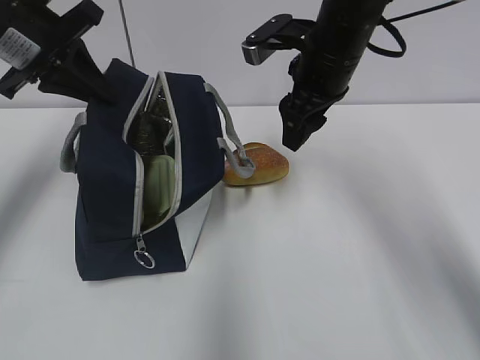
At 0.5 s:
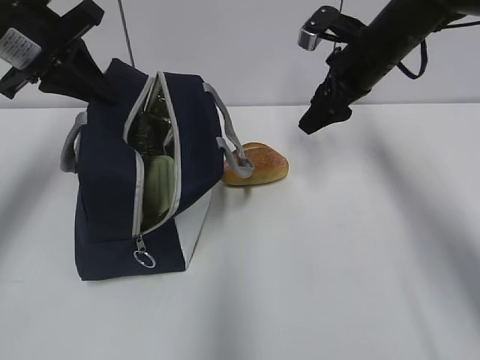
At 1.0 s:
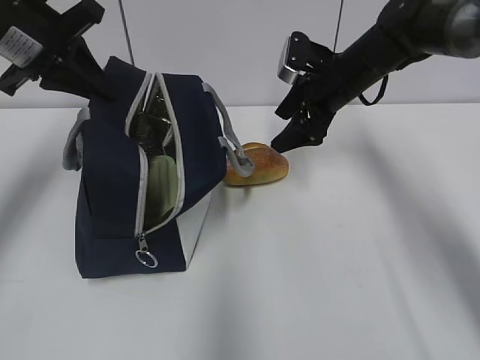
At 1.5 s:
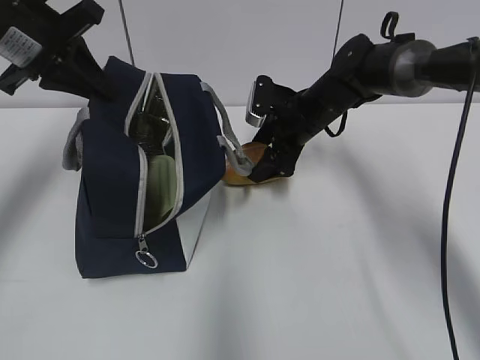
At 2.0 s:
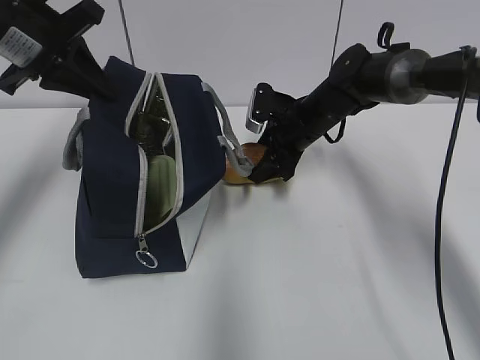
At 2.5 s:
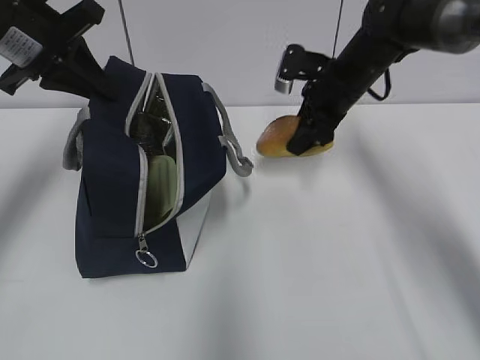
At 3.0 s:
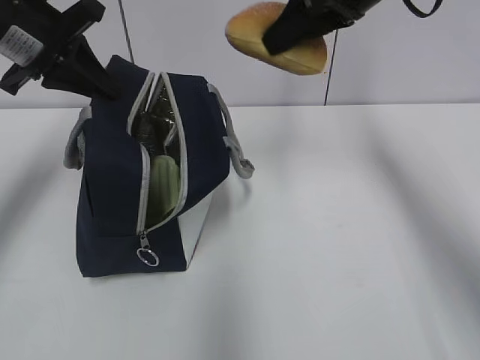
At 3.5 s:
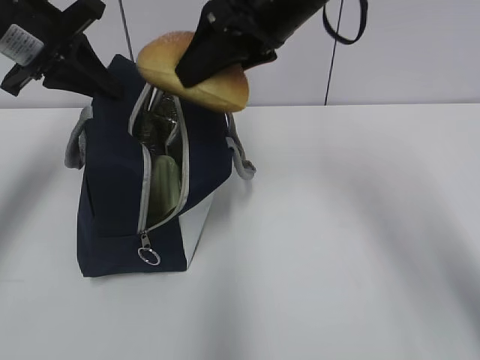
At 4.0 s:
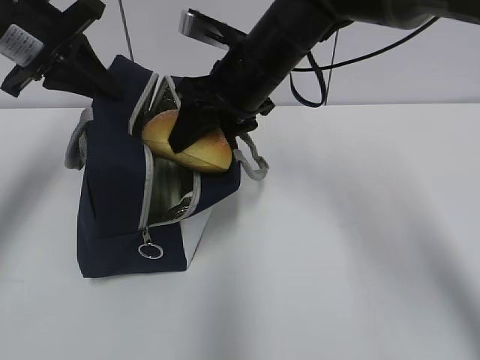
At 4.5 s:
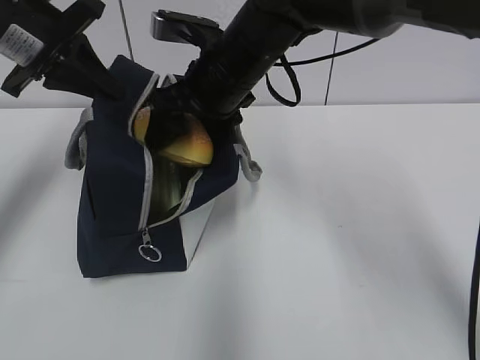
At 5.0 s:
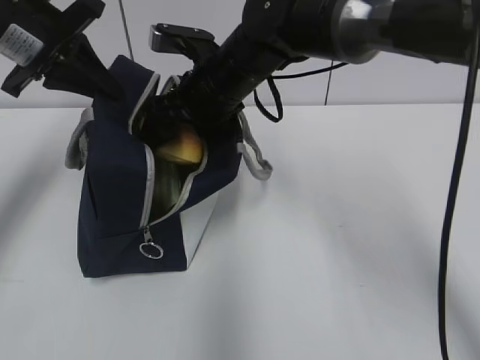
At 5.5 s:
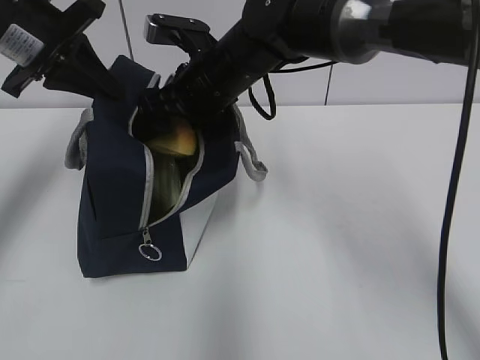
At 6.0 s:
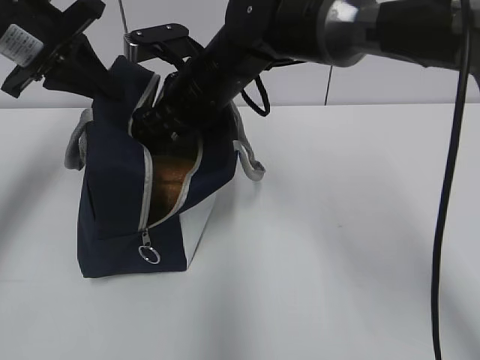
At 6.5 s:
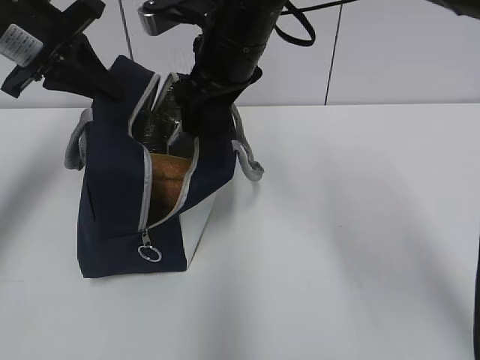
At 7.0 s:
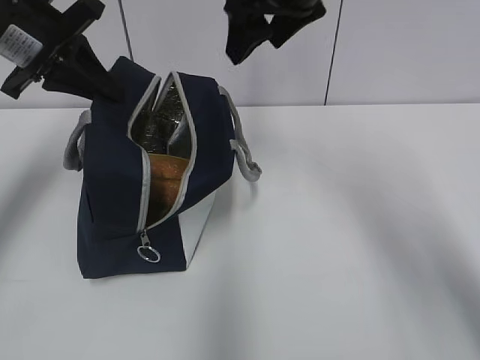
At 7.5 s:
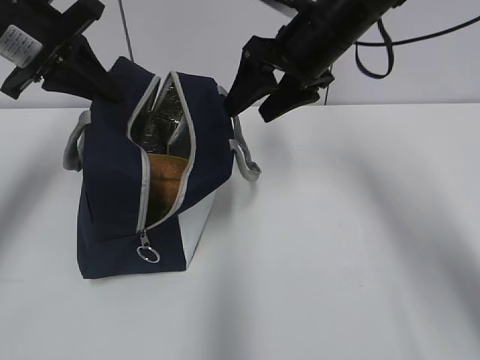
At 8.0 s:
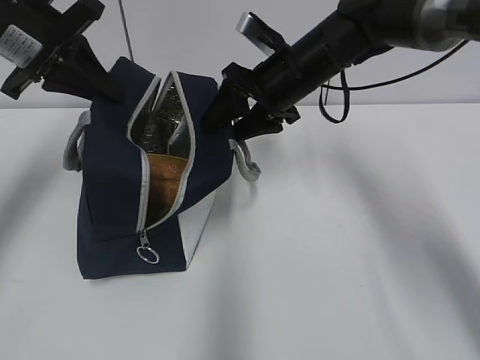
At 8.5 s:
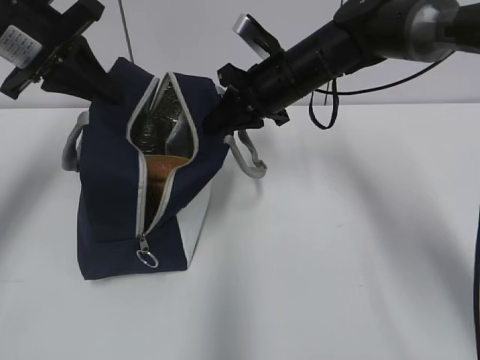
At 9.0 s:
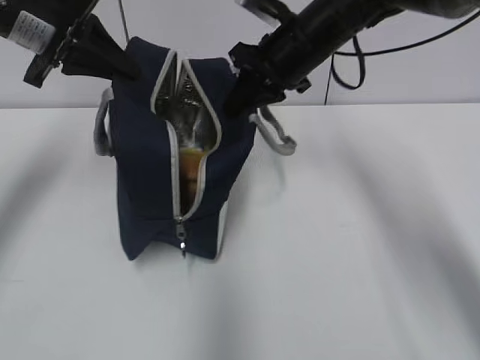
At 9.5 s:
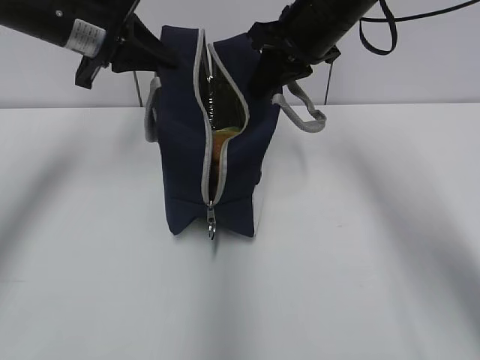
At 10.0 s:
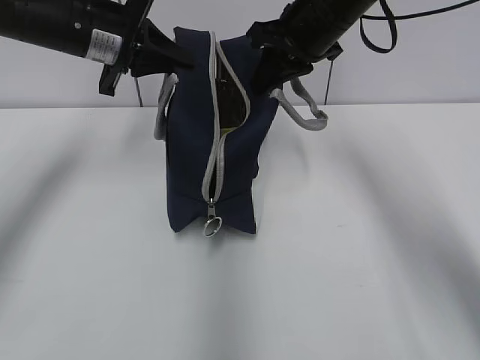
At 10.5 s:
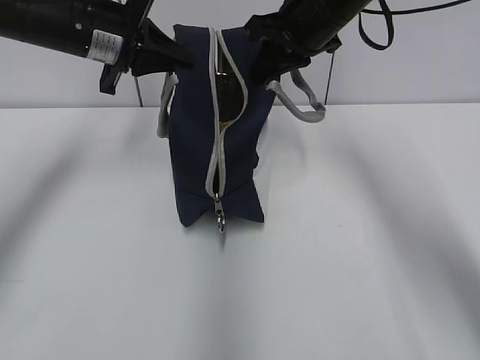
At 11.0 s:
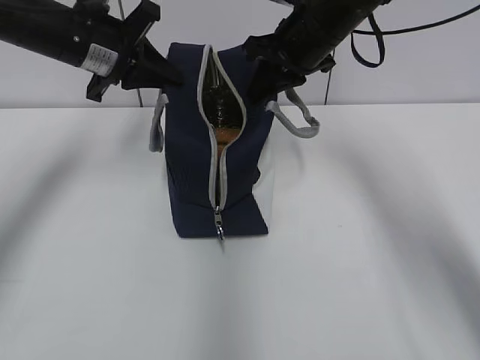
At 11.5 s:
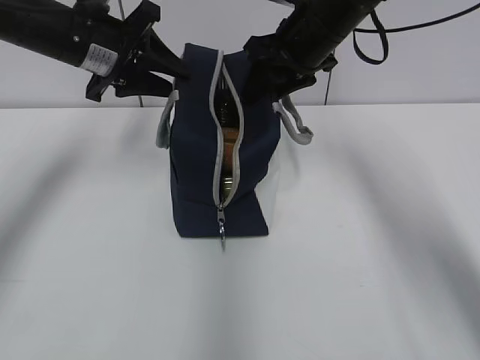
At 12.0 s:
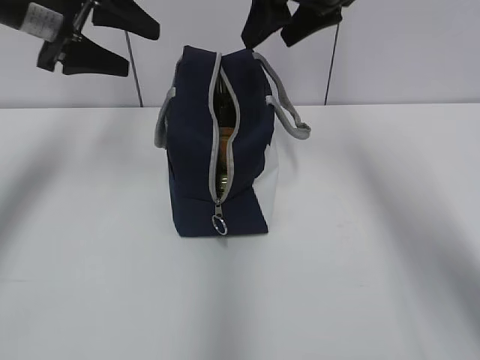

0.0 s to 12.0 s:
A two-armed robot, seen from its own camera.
0.0 to 2.0 s: The right gripper heads downward and forward, covering roughly 15 cm.
2.0 to 4.0 s: The right gripper moves upward, backward and to the left, some 20 cm.
4.0 to 6.0 s: The right gripper goes approximately 5 cm to the left, and opens its fingers.
6.0 to 8.0 s: The right gripper is displaced to the right by some 10 cm, and moves approximately 10 cm upward and comes back.
8.0 to 10.0 s: The right gripper shifts roughly 5 cm upward, and closes its fingers. The left gripper heads to the right, covering roughly 5 cm.
10.0 to 12.0 s: The left gripper shifts by some 5 cm, and opens its fingers. Meanwhile the right gripper shifts some 5 cm upward, and opens.

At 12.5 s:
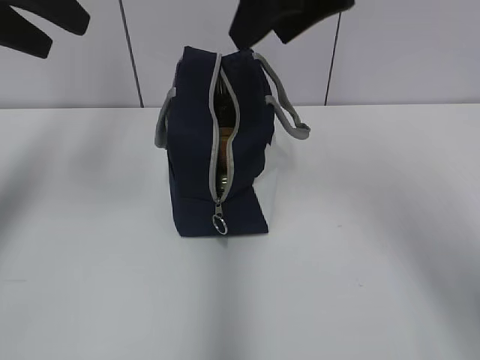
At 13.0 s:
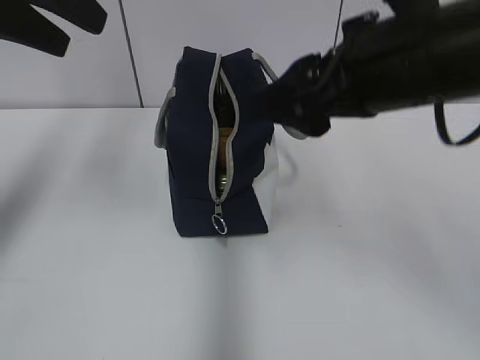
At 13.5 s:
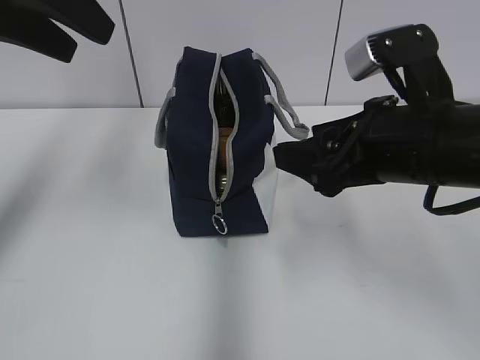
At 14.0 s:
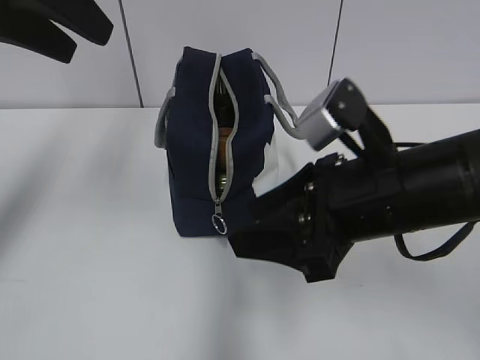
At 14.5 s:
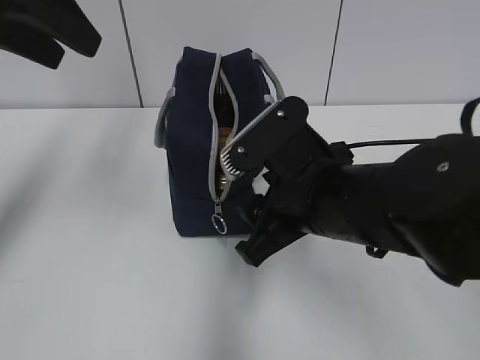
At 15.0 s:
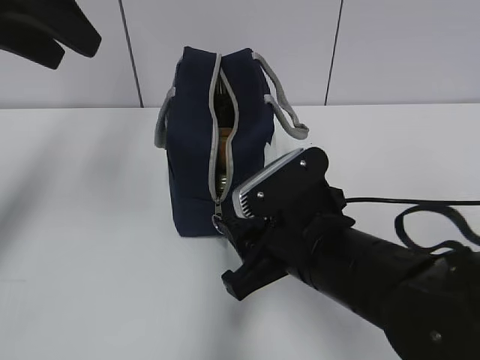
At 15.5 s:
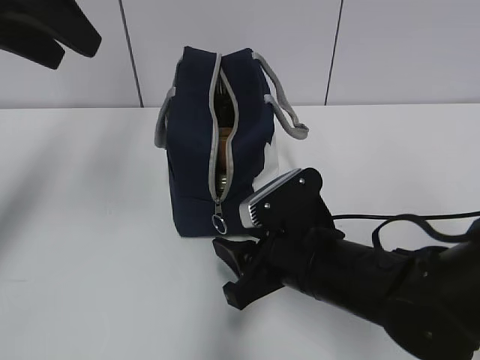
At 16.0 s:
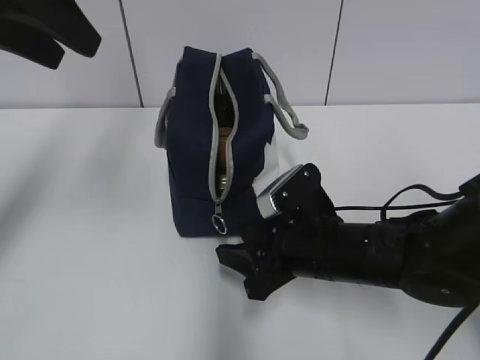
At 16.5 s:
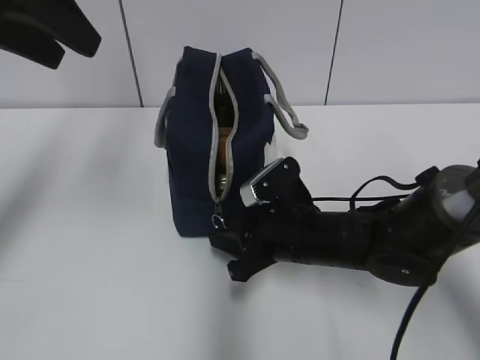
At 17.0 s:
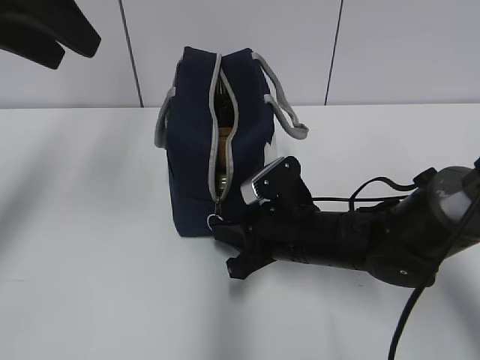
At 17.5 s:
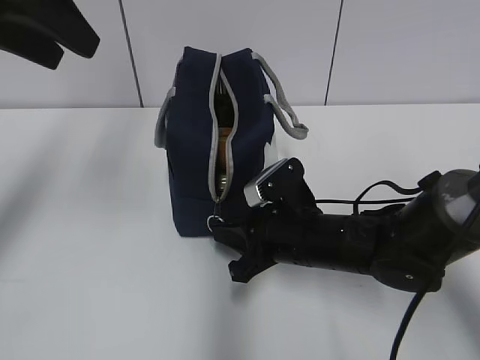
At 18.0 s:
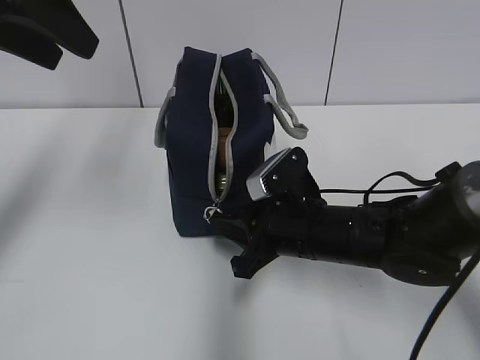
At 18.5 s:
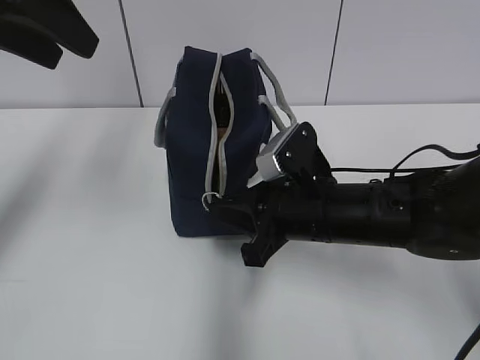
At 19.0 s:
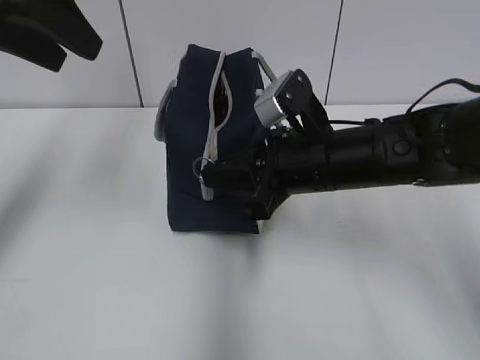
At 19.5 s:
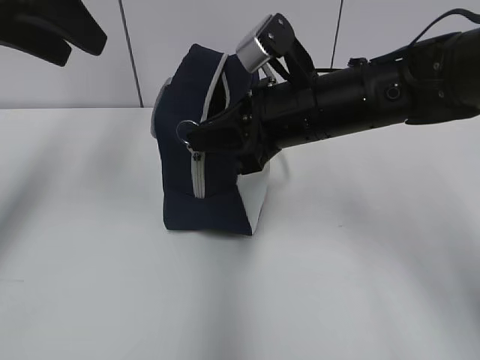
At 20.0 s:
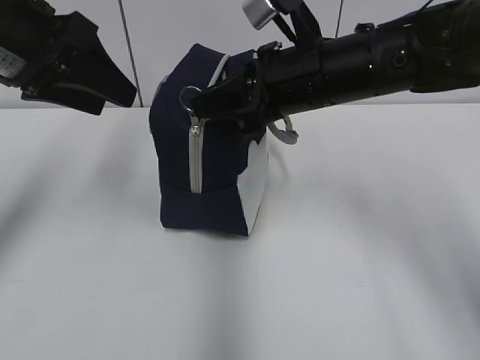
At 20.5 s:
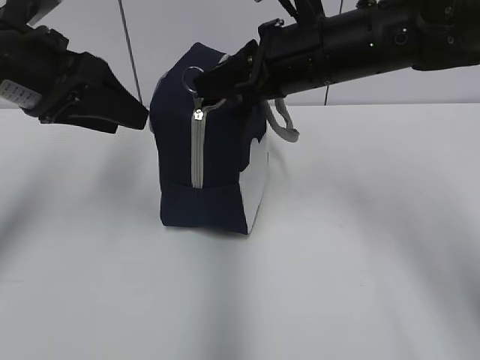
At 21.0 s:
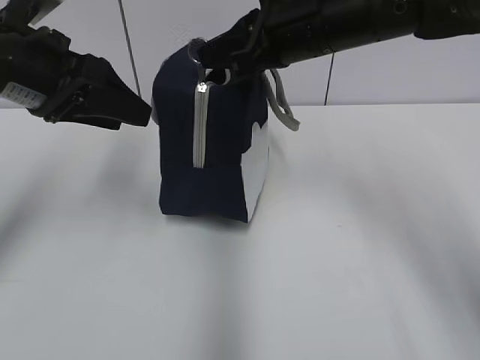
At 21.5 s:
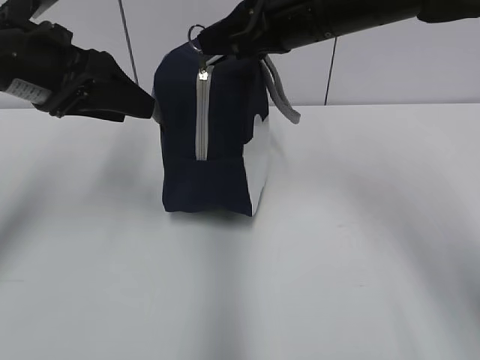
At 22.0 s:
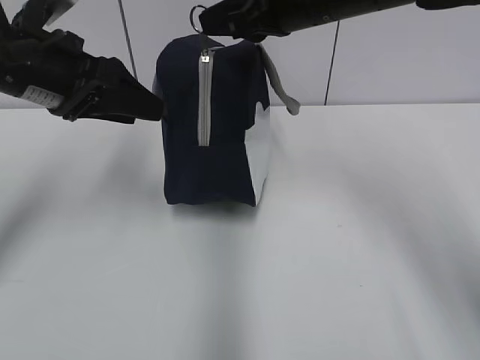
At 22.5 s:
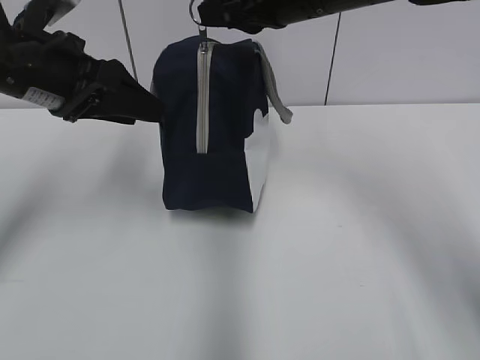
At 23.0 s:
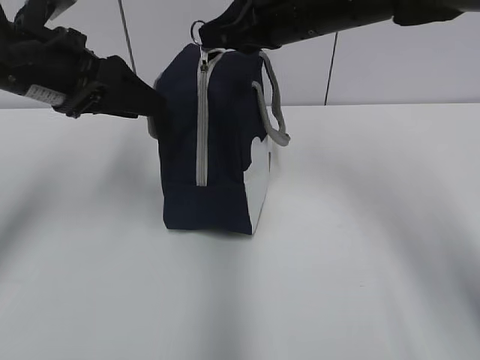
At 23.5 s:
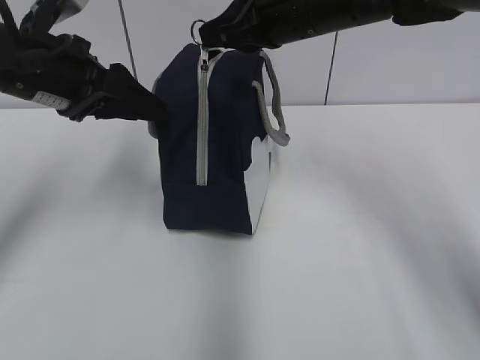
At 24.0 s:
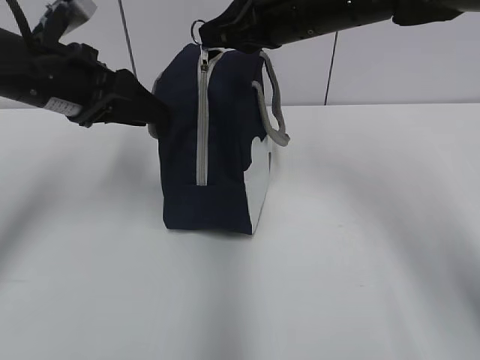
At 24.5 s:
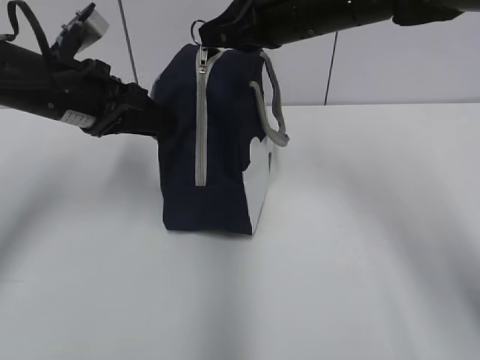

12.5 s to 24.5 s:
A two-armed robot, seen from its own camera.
12.5 to 14.5 s: The right gripper is displaced downward and backward by approximately 20 cm.
14.5 to 16.5 s: The right gripper travels downward and forward by some 15 cm.
16.5 to 18.5 s: The right gripper goes approximately 5 cm upward, and closes.
18.5 to 20.5 s: The left gripper heads downward, covering approximately 10 cm. The right gripper moves upward and forward, about 15 cm.
20.5 to 22.5 s: The right gripper travels upward by roughly 5 cm.
22.5 to 24.5 s: The grippers stay close to where they were, moving slightly.

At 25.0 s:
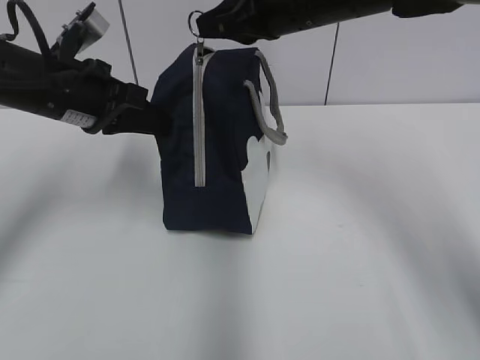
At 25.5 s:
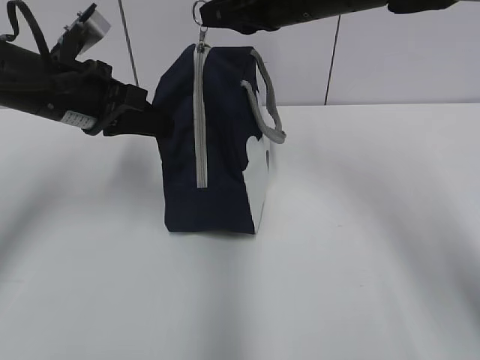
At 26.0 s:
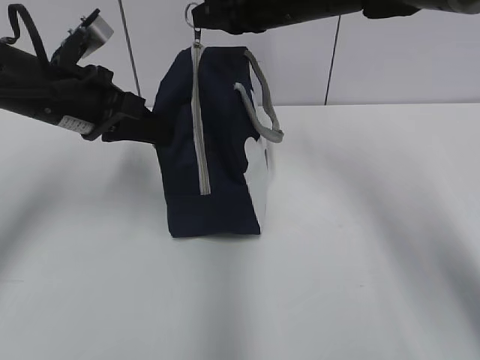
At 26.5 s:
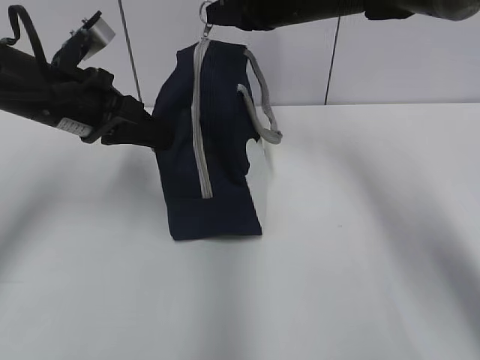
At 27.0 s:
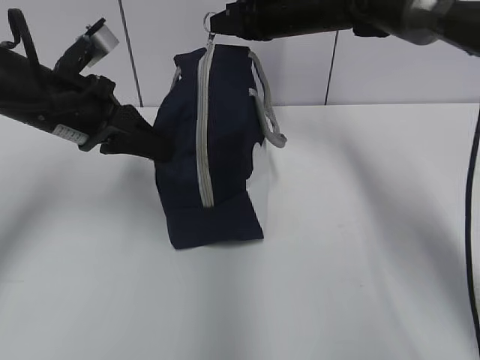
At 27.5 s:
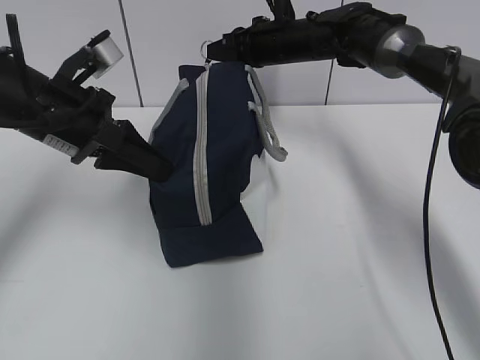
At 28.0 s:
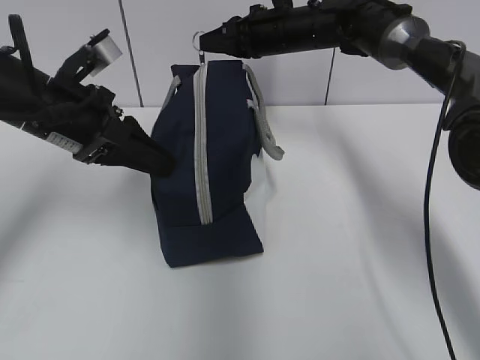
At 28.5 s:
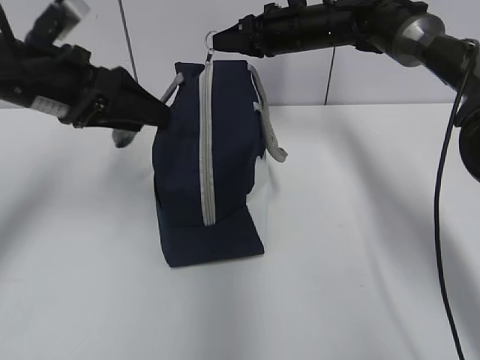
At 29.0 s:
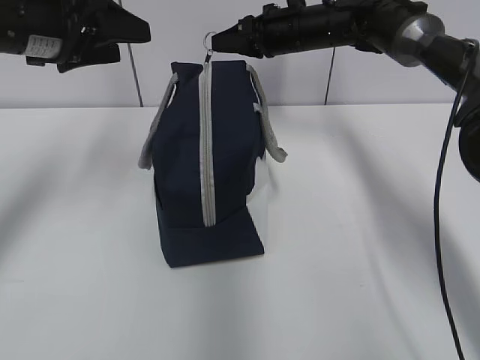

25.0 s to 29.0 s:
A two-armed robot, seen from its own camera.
25.0 to 27.0 s: The right gripper shifts roughly 15 cm forward and downward.
27.0 to 29.0 s: The left gripper is displaced upward by about 5 cm, and opens.
